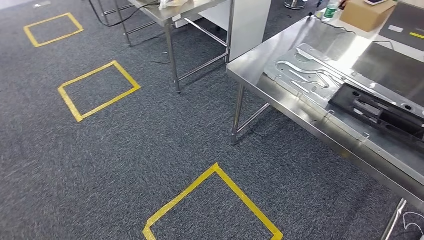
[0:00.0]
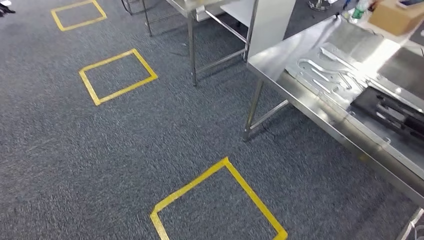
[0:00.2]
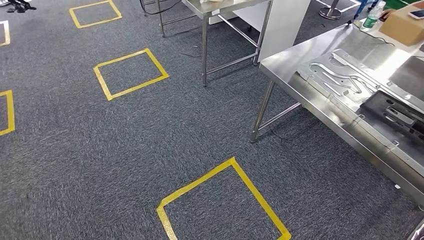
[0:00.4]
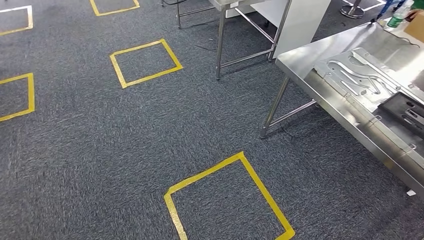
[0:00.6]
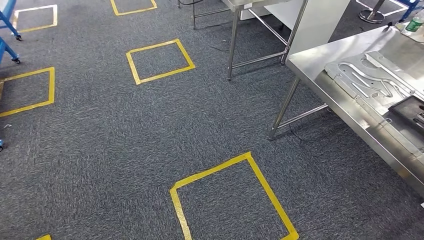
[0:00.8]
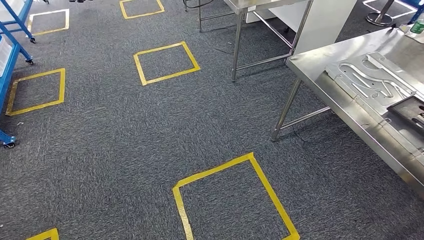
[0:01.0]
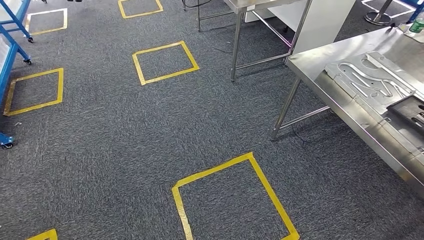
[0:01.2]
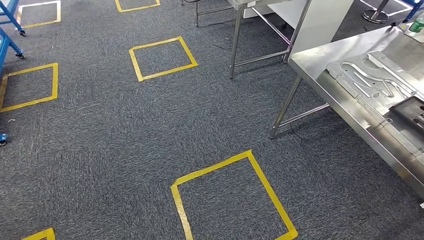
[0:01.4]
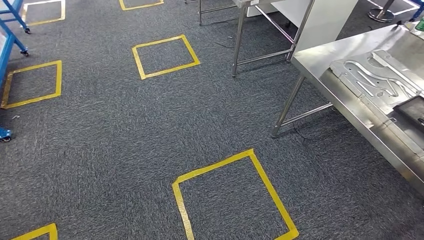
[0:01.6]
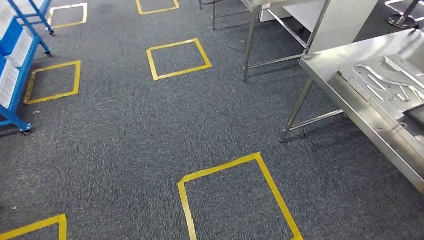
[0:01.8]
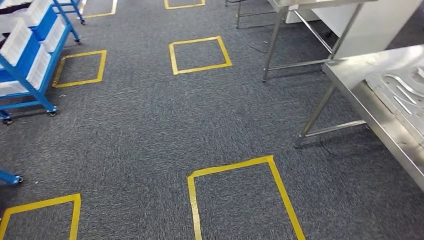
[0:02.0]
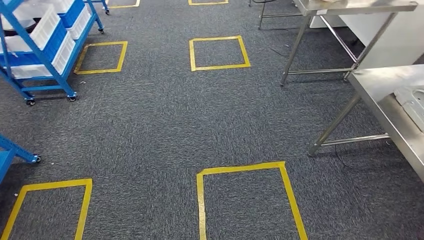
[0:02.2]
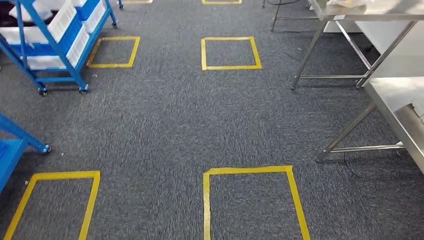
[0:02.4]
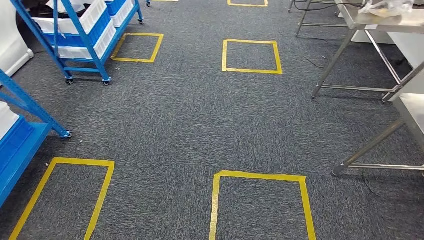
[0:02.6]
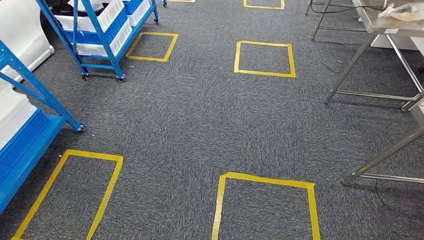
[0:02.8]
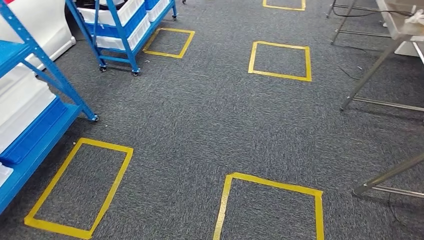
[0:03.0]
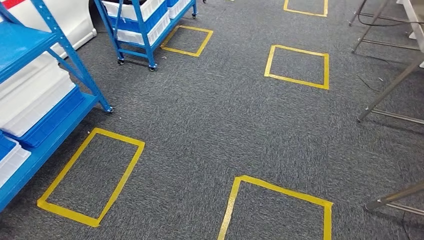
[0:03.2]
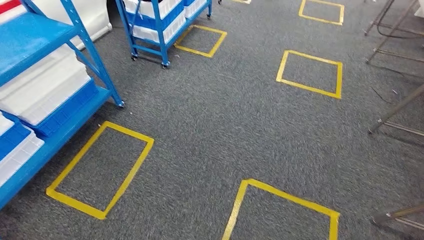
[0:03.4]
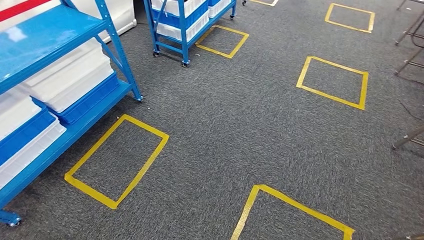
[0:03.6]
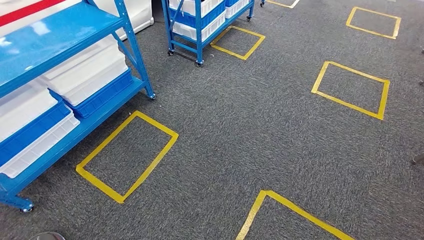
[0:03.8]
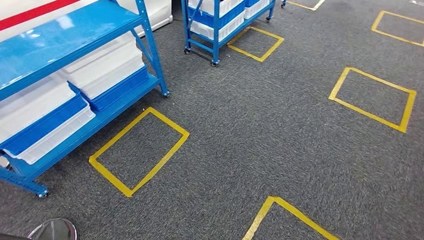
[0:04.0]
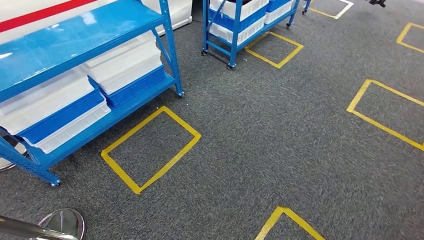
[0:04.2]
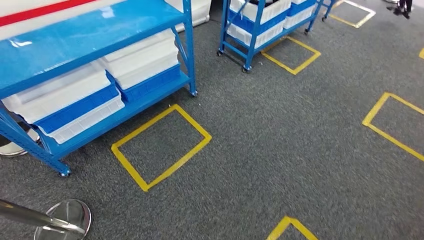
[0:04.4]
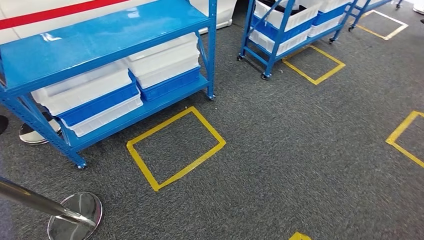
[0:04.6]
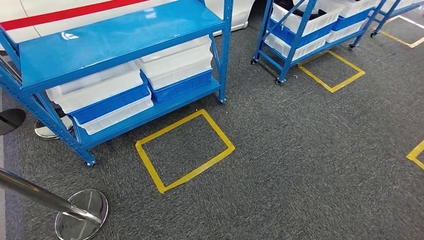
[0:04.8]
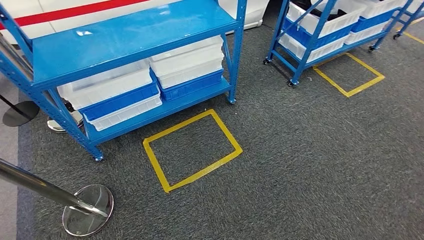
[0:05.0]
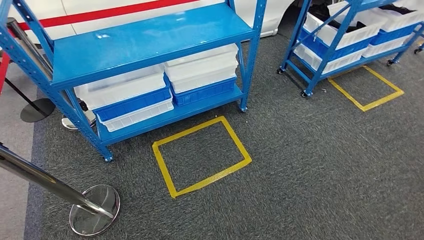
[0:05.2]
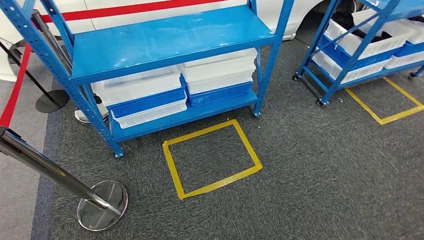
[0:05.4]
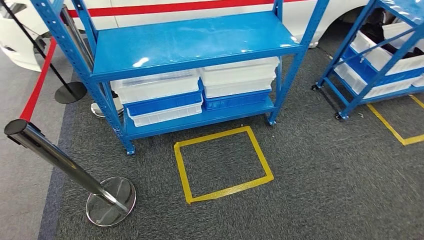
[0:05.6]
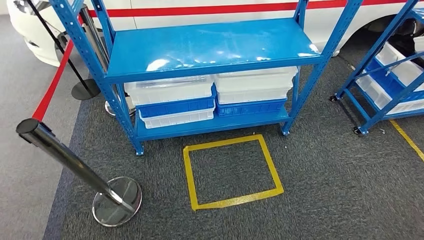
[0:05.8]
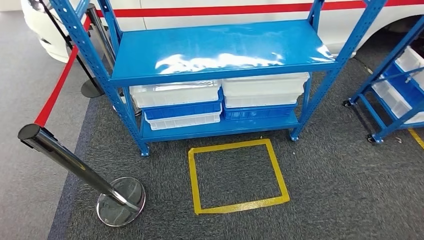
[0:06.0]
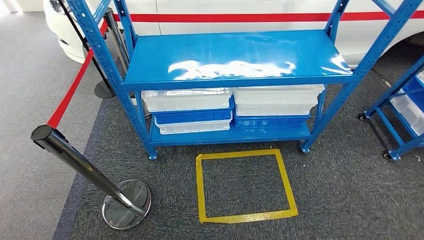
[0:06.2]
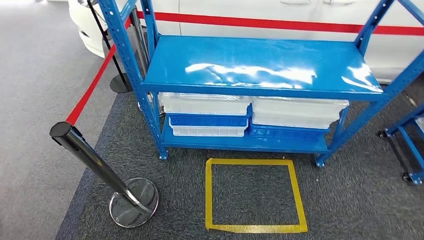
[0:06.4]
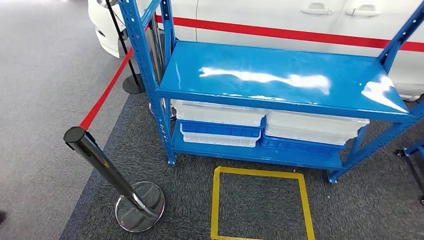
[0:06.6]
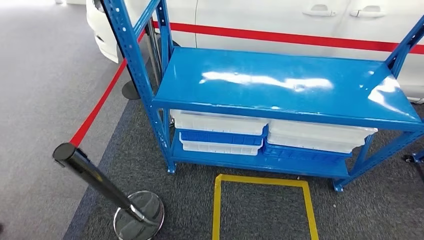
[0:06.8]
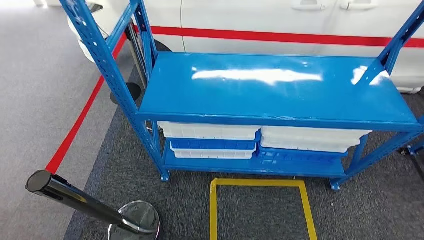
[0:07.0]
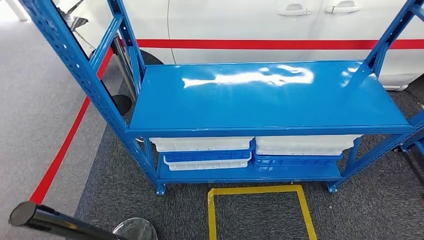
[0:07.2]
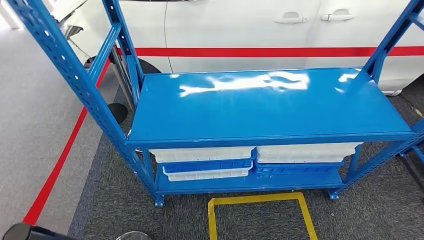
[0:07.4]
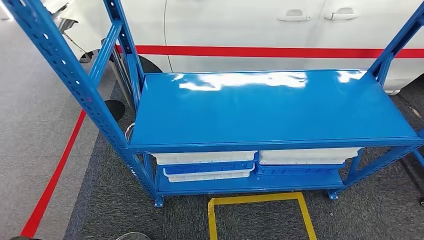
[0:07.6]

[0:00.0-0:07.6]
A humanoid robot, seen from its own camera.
Step, 0:00.0 to 0:07.4: Return to the initial position at the shelf.
